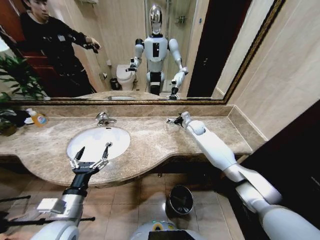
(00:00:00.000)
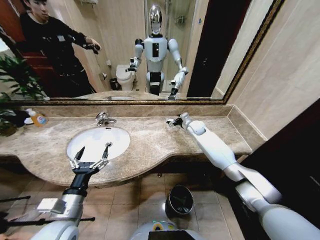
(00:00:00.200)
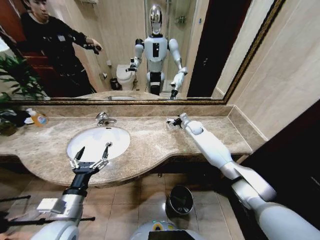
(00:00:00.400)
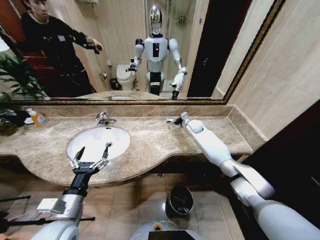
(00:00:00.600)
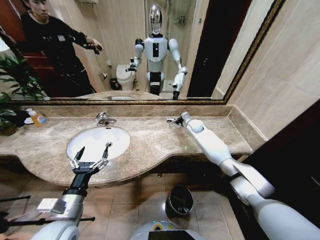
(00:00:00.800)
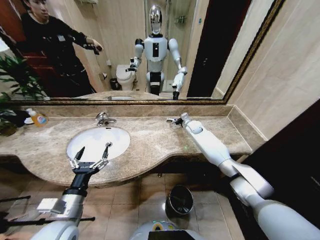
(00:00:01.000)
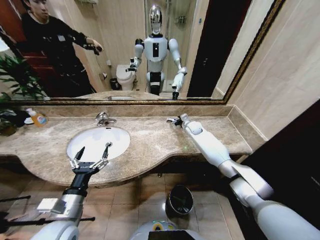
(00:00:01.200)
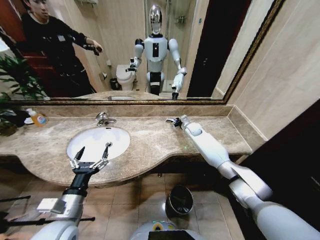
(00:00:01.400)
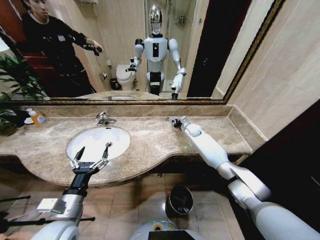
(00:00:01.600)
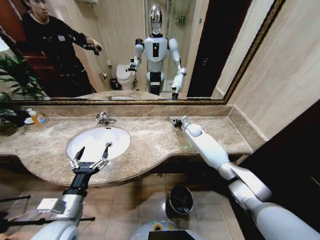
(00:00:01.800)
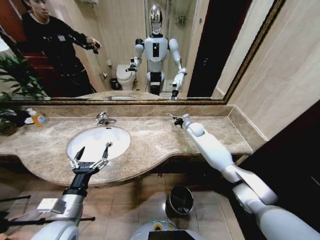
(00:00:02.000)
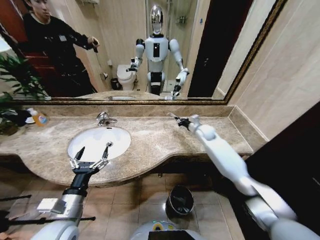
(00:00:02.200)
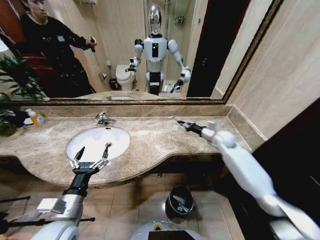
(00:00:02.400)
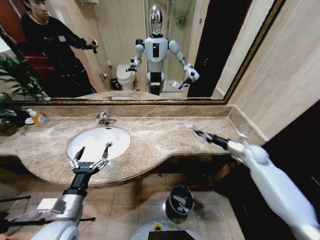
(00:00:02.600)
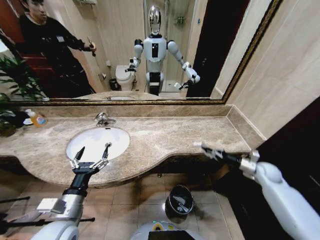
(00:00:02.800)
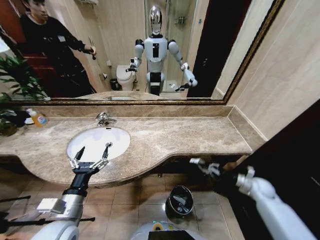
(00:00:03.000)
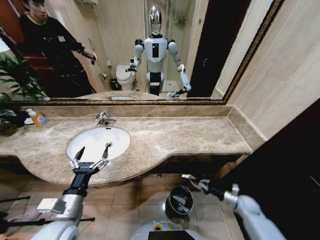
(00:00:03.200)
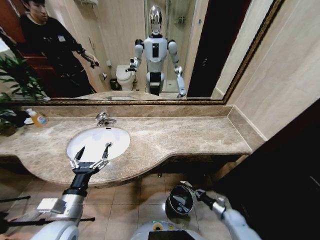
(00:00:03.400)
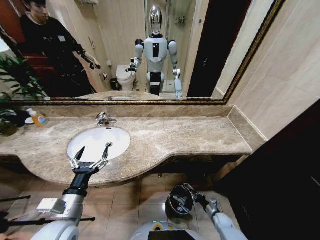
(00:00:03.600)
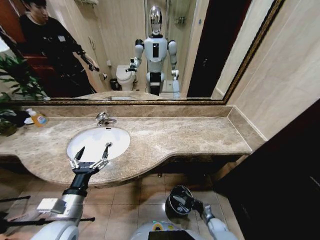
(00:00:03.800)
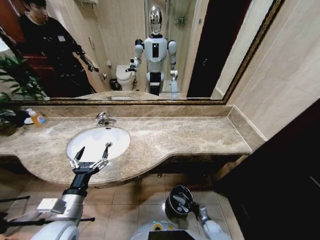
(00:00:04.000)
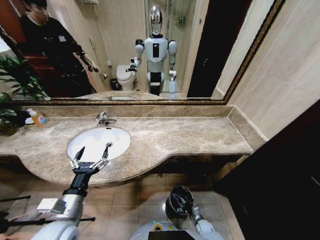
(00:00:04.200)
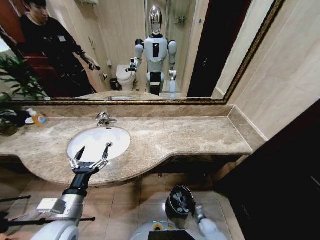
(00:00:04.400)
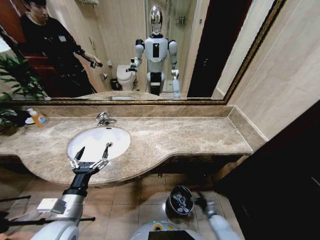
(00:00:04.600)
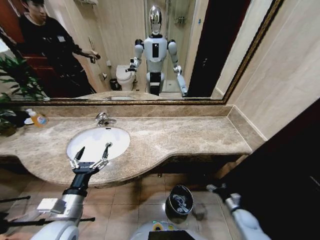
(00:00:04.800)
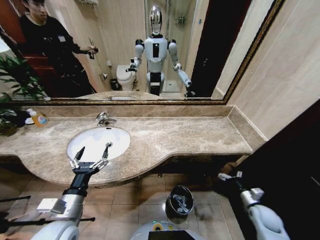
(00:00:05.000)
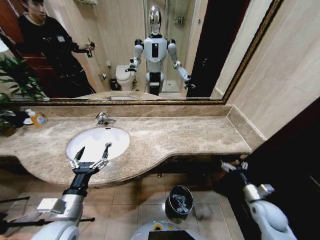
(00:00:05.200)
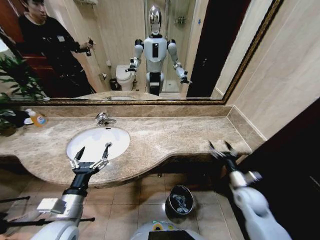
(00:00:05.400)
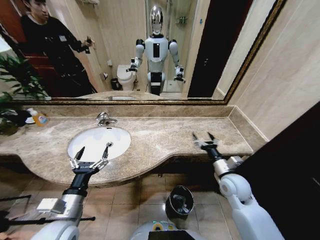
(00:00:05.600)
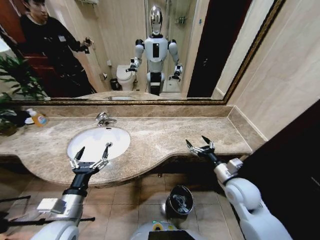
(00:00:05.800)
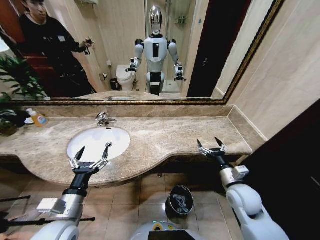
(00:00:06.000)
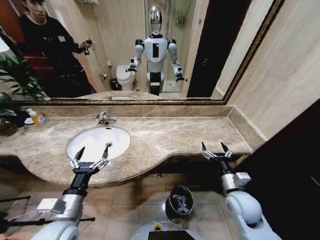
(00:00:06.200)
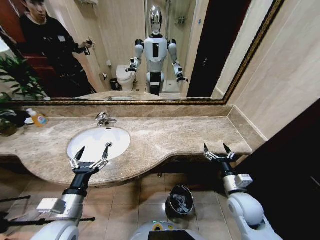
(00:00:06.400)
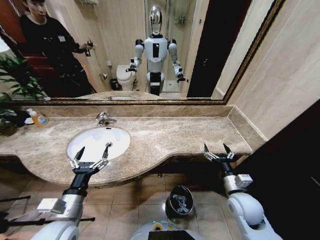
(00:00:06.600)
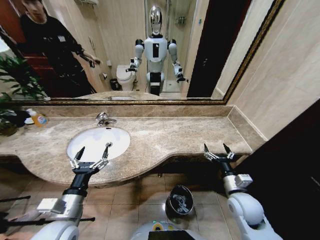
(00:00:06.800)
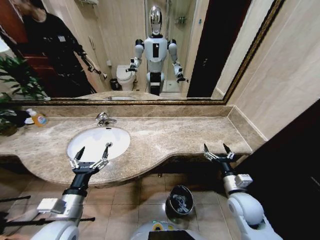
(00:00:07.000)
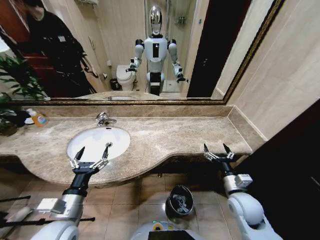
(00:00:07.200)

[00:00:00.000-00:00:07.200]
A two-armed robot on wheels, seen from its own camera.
Task of the whole recording: Pick up the trash from the sink and place it in the trash bin.
00:00:00.000 to 00:00:01.400: The right gripper closes its fingers.
00:00:01.400 to 00:00:02.800: The right gripper moves to the right and backward, roughly 40 cm, and closes.
00:00:02.800 to 00:00:04.400: The right gripper goes some 50 cm downward, to the left and backward, and opens its fingers.
00:00:04.400 to 00:00:05.800: The right gripper shifts about 40 cm upward, and opens.
00:00:05.800 to 00:00:07.200: The right gripper ends up approximately 5 cm from where it was.
